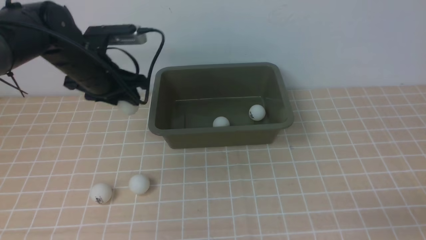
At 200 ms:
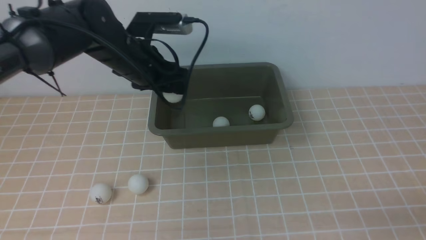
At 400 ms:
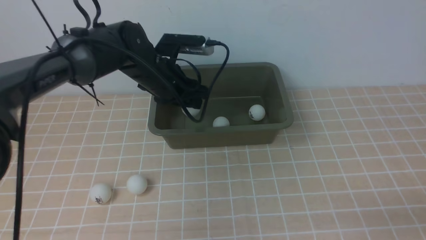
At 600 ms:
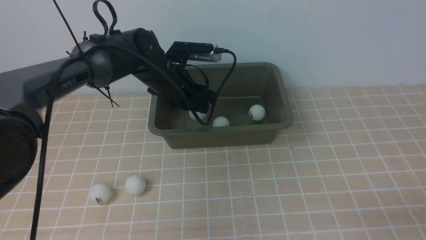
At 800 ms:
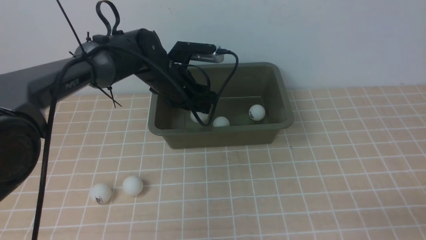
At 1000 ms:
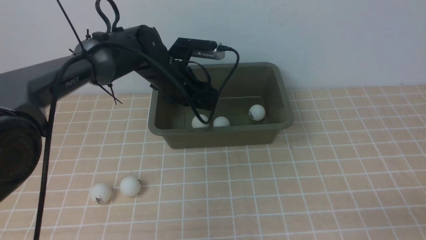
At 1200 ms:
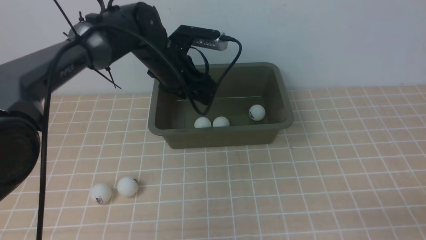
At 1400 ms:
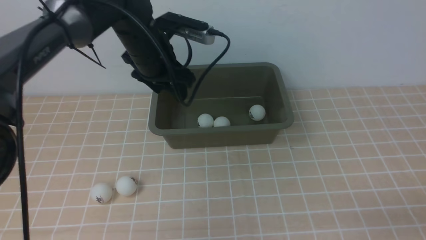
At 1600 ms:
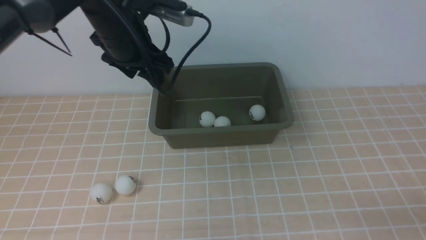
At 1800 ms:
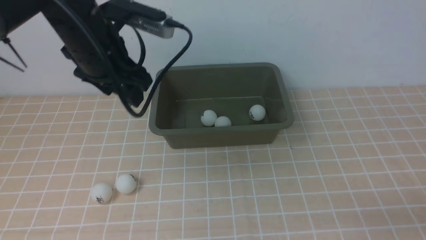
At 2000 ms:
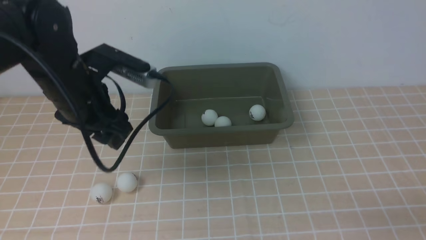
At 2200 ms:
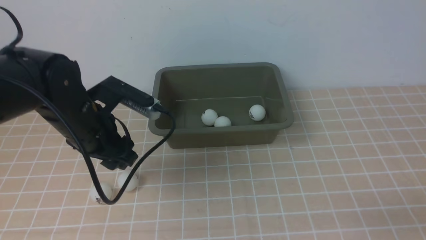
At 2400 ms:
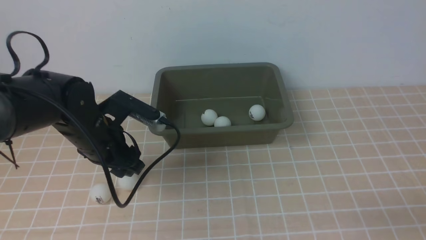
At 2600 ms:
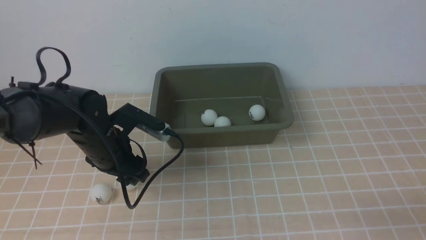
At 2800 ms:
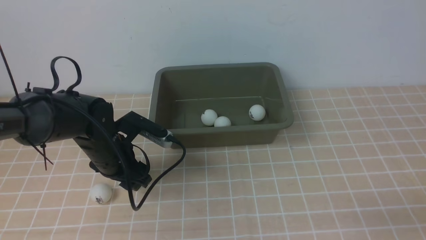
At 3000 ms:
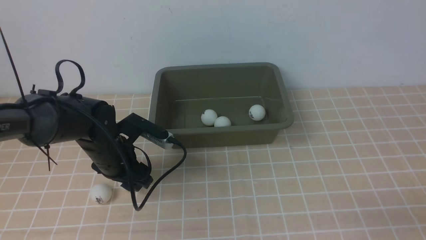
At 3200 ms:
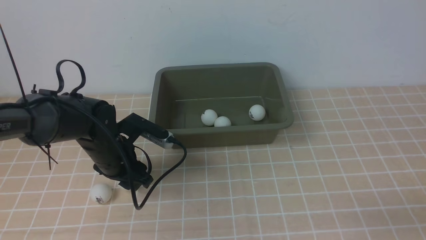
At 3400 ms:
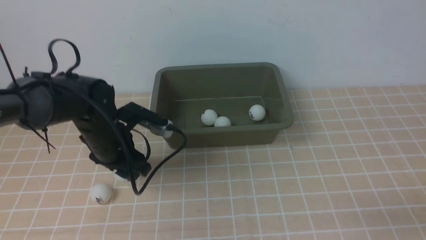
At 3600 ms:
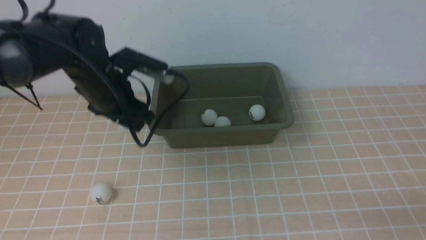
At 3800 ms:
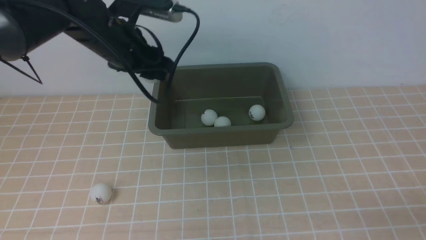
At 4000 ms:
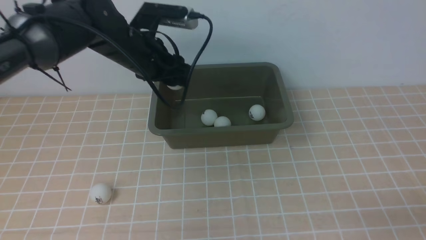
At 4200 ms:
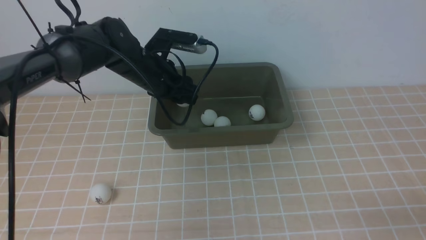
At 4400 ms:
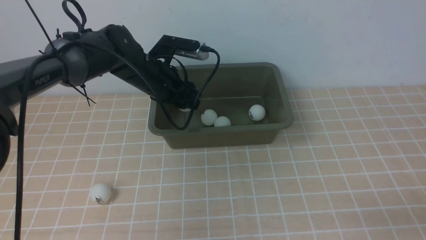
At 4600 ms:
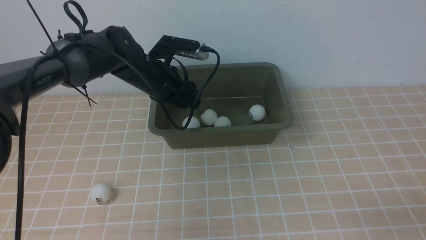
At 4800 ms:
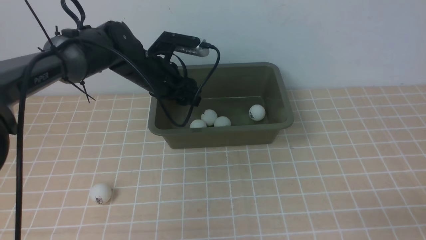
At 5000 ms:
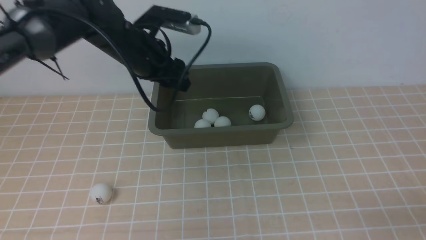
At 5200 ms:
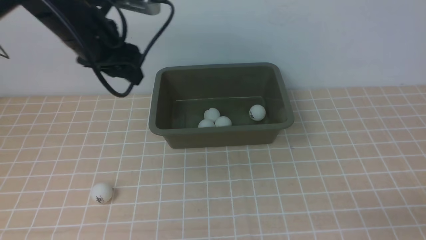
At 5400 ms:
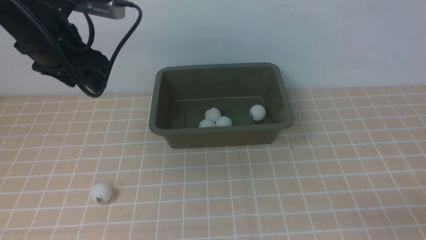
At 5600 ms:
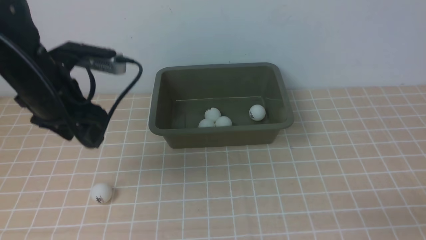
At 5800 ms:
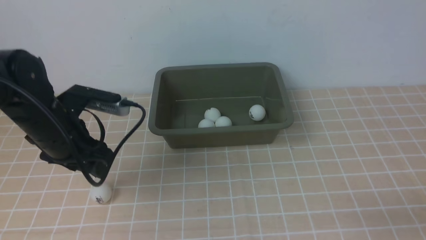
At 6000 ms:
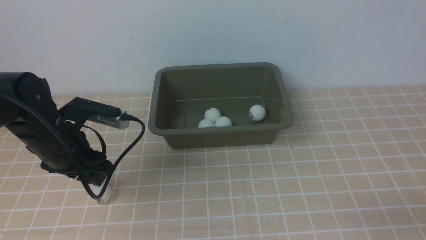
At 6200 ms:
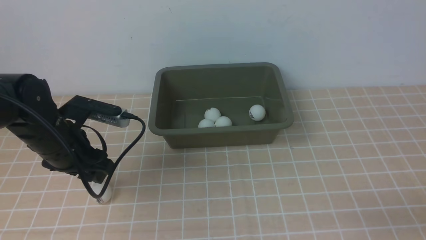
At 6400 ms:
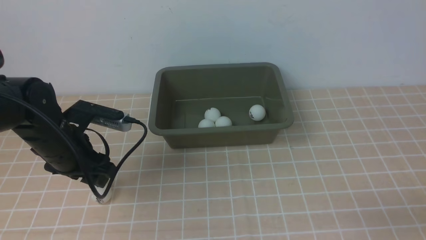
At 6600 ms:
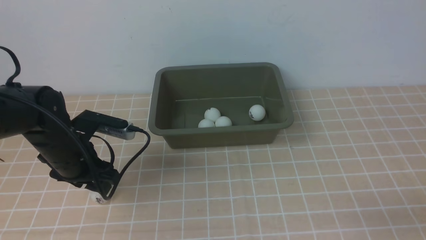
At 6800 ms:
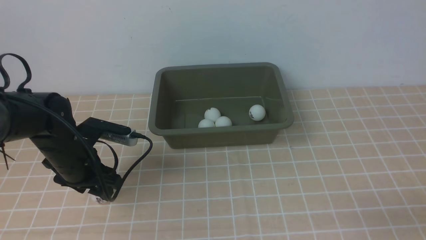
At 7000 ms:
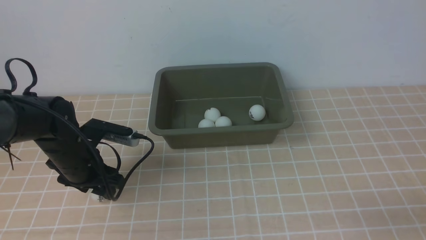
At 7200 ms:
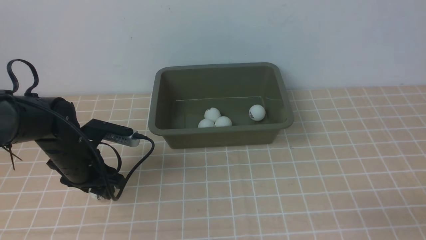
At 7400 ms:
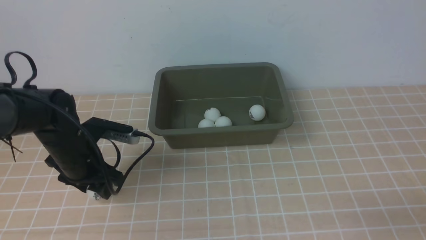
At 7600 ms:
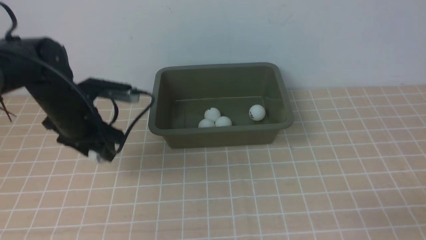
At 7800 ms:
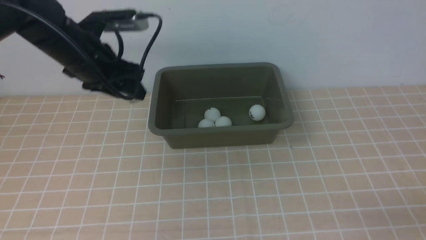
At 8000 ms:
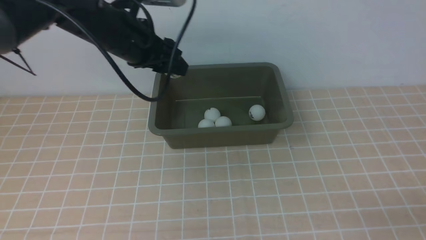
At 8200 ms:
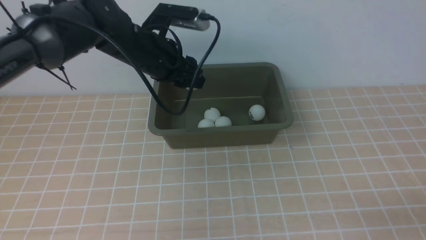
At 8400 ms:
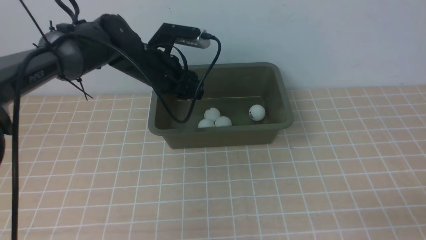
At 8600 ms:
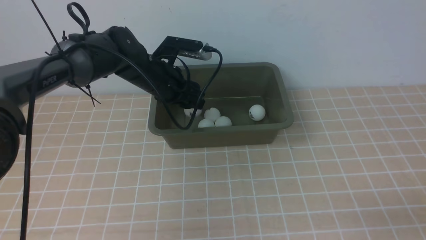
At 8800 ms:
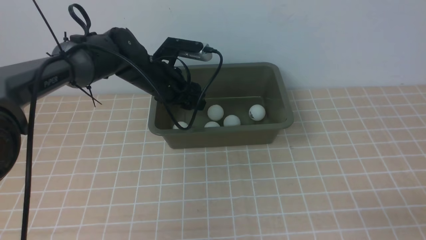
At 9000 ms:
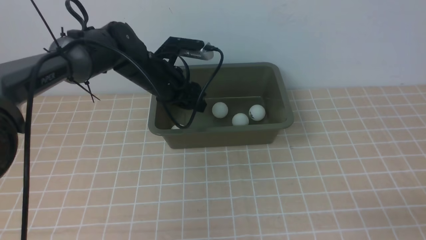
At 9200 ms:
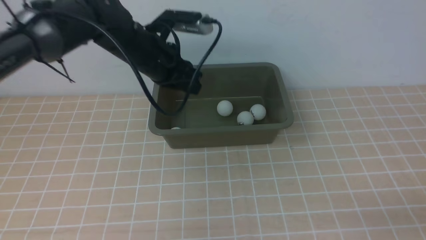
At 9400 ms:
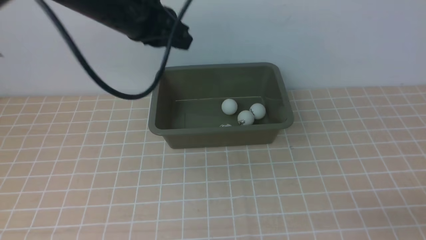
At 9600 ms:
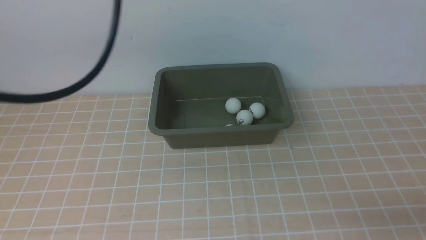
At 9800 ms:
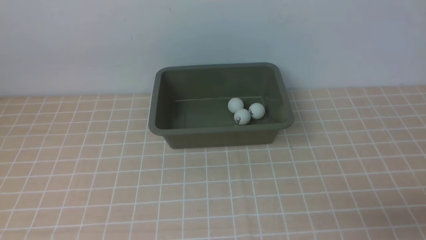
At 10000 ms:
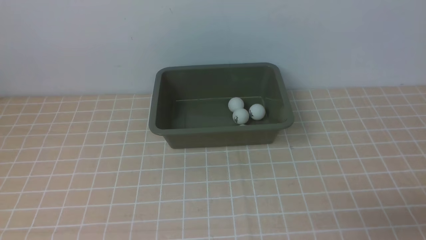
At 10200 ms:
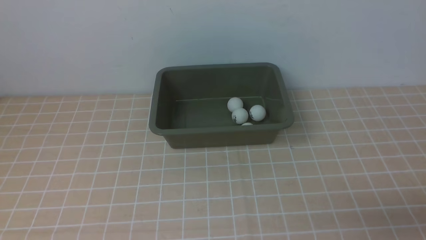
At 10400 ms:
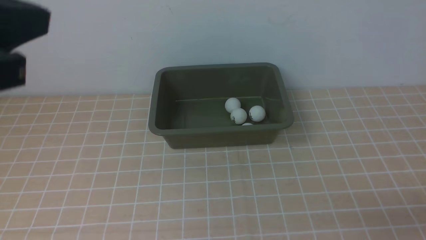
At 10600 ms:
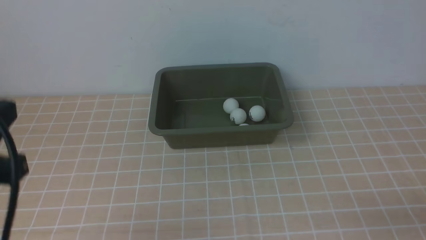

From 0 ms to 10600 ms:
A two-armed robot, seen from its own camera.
Step, from 0 ms to 1400 ms: use the left arm to put the table tennis ball into the box.
Step, from 1600 ms to 3600 ms: use the left arm to clamp the table tennis ball closest to it.
Step, from 4000 ms to 5000 ms: use the left arm to put the table tennis ball into the box.
Step, from 5200 ms to 7600 ms: use the left arm to clamp the table tennis ball closest to it.
Step, from 7800 ms to 8800 ms: use the left arm to put the table tennis ball into the box.
From 0 ms to 1600 ms: The left gripper is displaced upward and to the right by approximately 10 cm.
From 1600 ms to 3000 ms: The left gripper moves downward and backward, about 20 cm.
From 3000 ms to 4600 ms: The left gripper travels forward, upward and to the right by about 15 cm.
From 4600 ms to 6000 ms: The left gripper heads backward and to the left, covering some 20 cm.
From 7600 ms to 9000 ms: The left gripper heads to the right and forward, covering approximately 15 cm.
From 9000 ms to 10600 ms: The left gripper heads backward and upward, covering some 35 cm, and closes its fingers.

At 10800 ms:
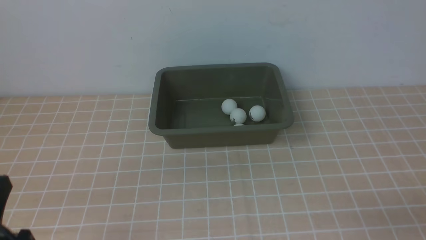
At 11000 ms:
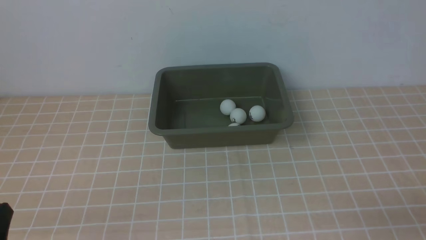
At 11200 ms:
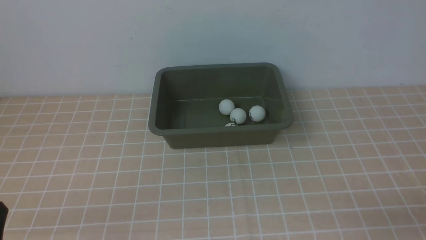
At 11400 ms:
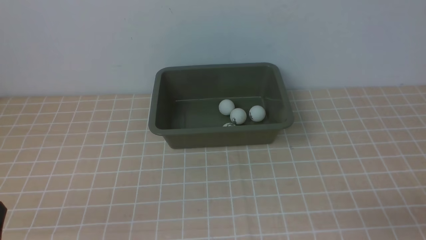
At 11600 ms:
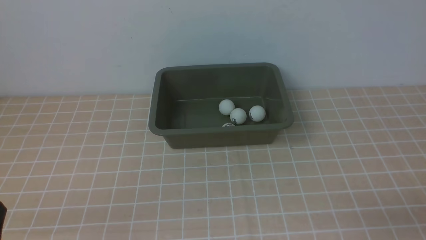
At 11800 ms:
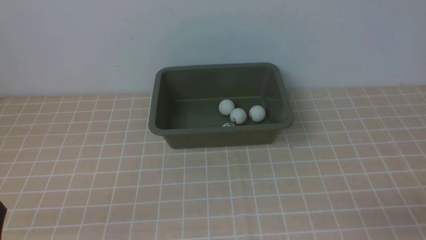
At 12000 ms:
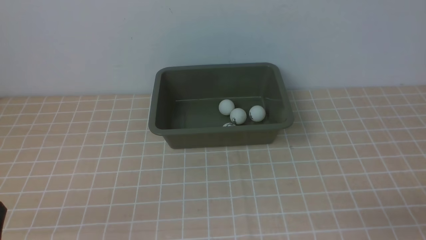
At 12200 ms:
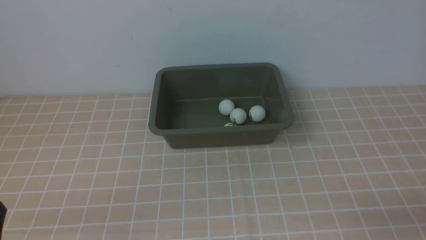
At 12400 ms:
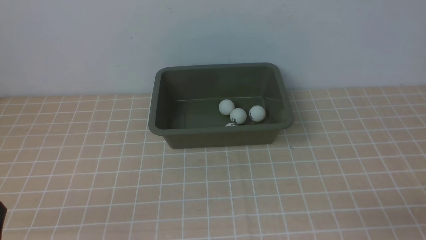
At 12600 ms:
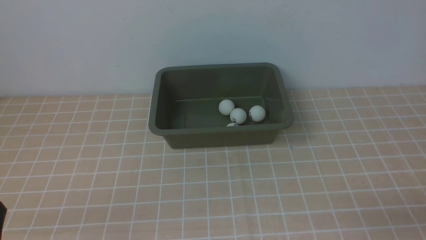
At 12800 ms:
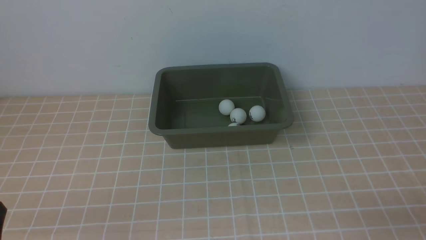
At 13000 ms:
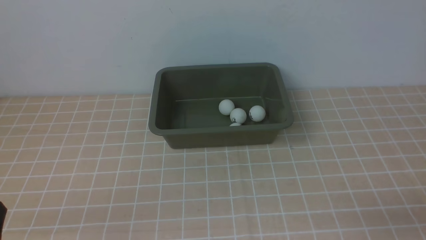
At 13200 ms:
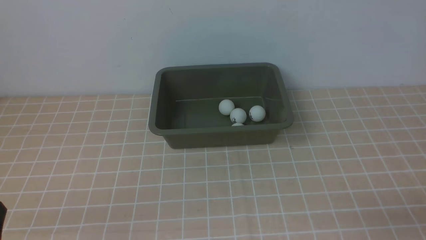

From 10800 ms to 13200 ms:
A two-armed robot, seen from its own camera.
From 10800 ms to 12000 ms: The left gripper travels downward by approximately 10 cm.
From 12000 ms to 13200 ms: Both grippers stay put.
